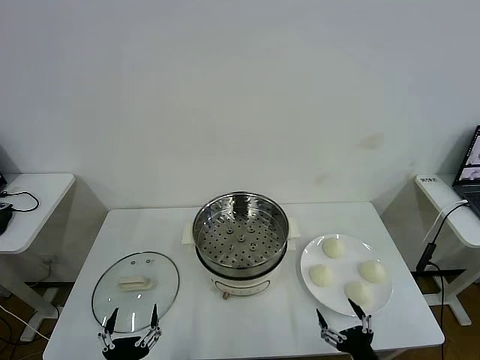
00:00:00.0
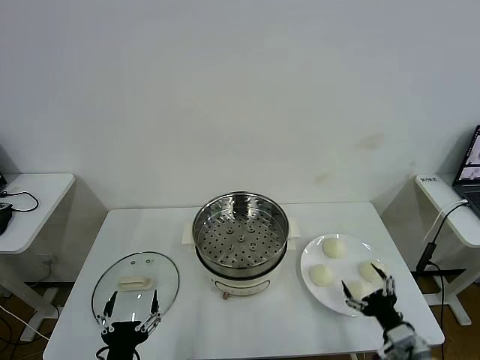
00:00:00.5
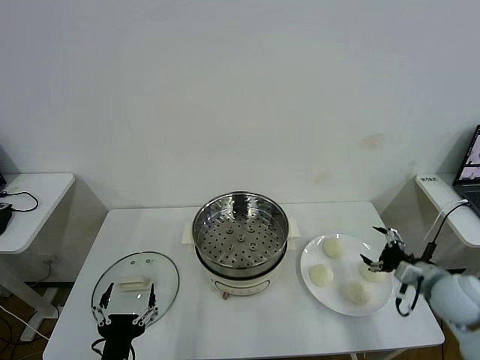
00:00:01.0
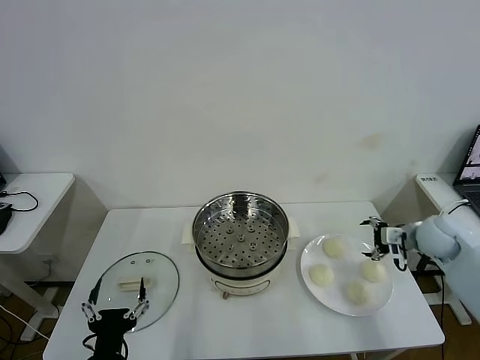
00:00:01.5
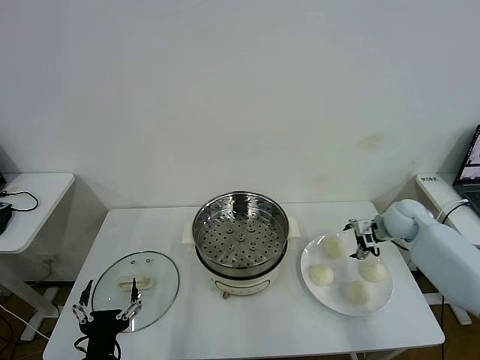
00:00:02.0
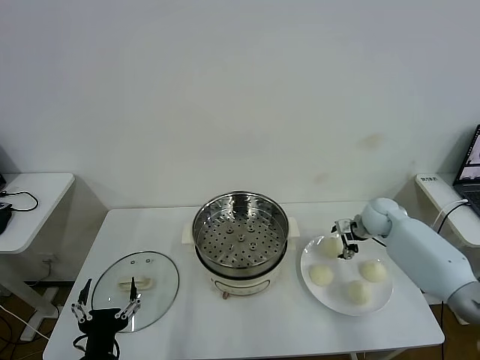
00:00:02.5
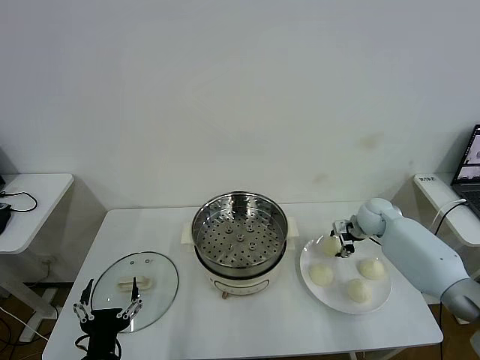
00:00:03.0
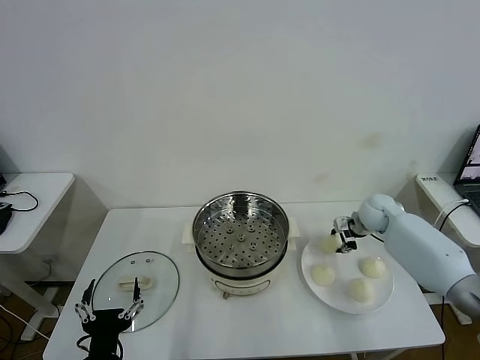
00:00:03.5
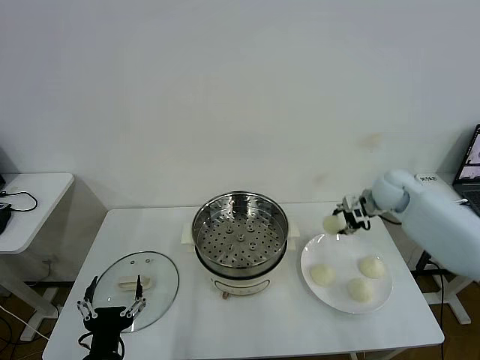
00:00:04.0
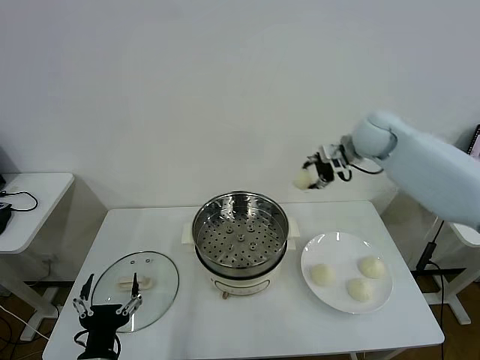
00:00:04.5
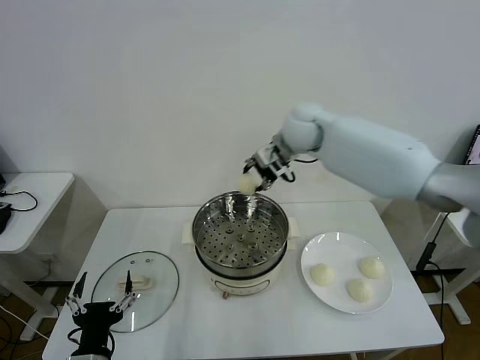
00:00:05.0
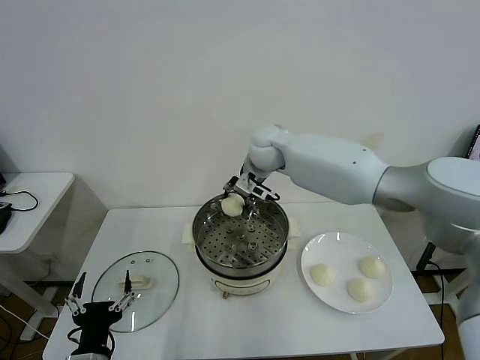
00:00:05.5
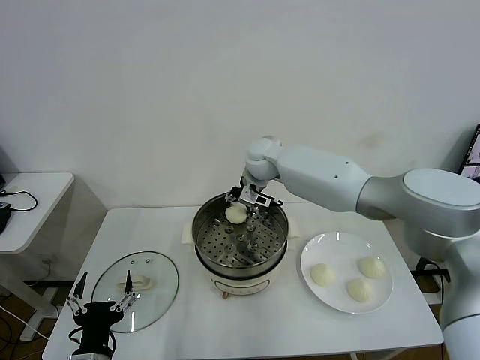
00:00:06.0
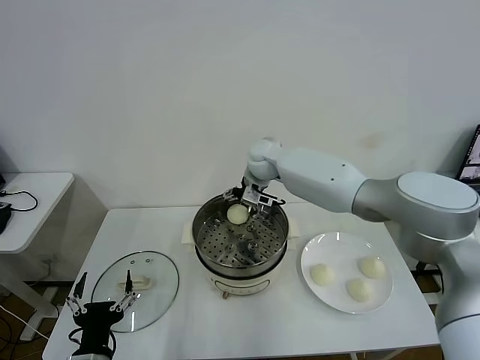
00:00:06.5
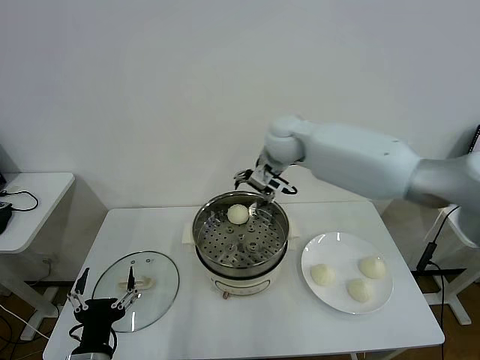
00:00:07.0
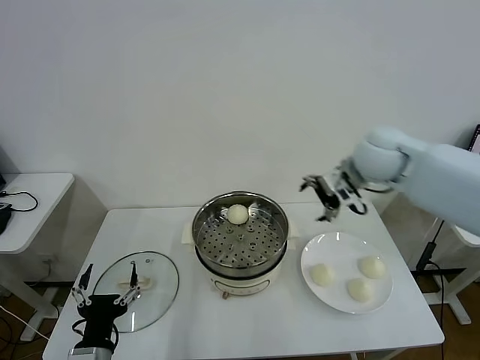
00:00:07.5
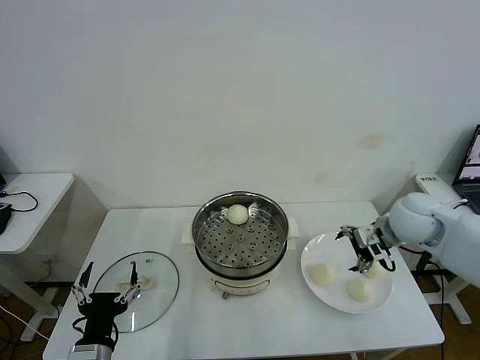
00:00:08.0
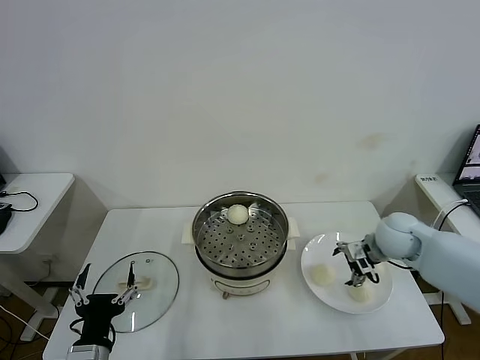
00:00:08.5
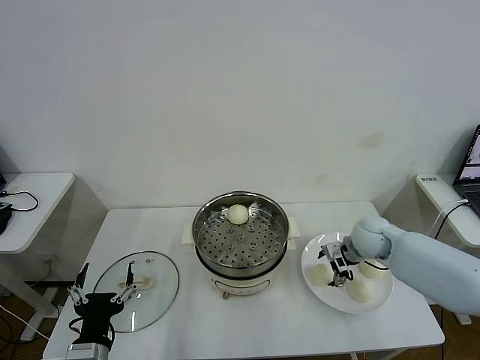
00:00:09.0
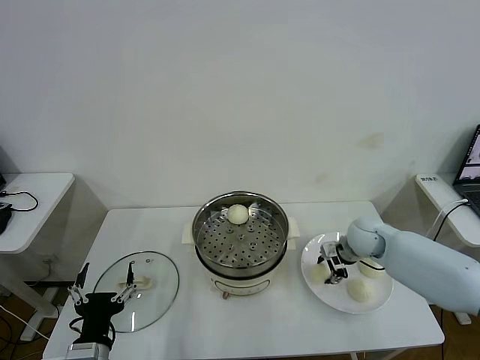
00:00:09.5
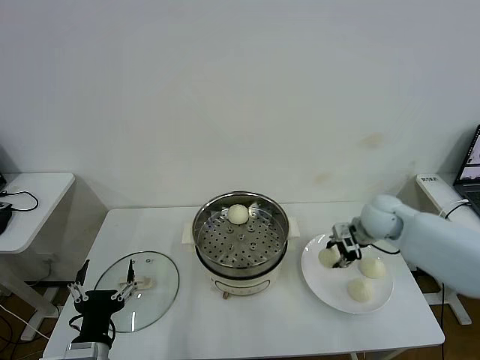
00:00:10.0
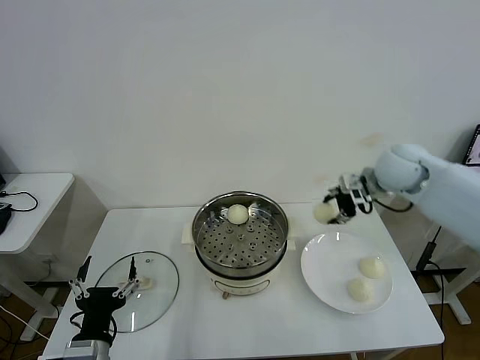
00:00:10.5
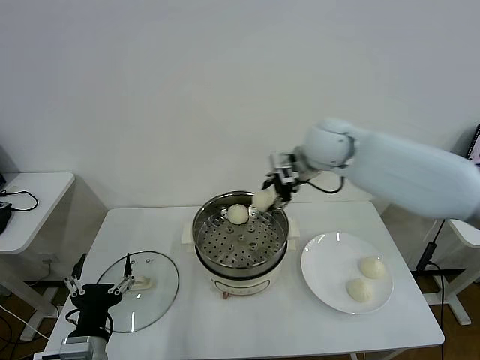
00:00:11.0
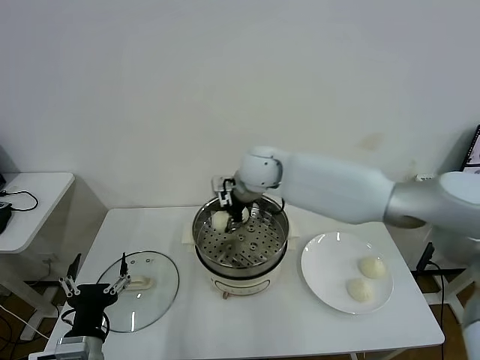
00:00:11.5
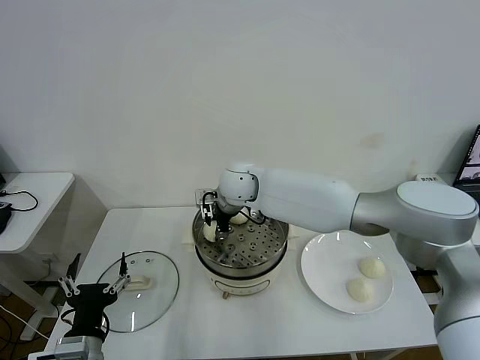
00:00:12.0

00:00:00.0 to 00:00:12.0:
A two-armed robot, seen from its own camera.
Task of the whole recording: take steamed baozi put them in steamer then cover it.
Step, 00:00:00.0 to 00:00:03.0: Grasp the baozi in the plate with right gripper.
Step, 00:00:03.5 to 00:00:06.0: Place the baozi on the steamer with right gripper.
Step, 00:00:07.0 to 00:00:09.5: Grasp the baozi in the plate with right gripper.
00:00:02.0 to 00:00:04.0: The right gripper travels upward by about 10 cm, and closes up.
00:00:04.0 to 00:00:06.0: The right gripper moves to the left, about 30 cm.
00:00:06.0 to 00:00:08.0: The right gripper goes some 35 cm to the right and backward, and opens up.
00:00:08.0 to 00:00:10.0: The right gripper moves forward, approximately 5 cm, and closes.
00:00:10.0 to 00:00:12.0: The right gripper heads to the left, covering roughly 35 cm.

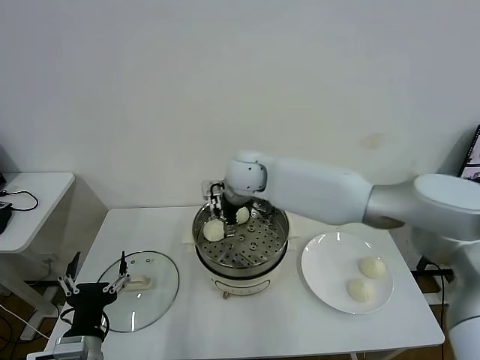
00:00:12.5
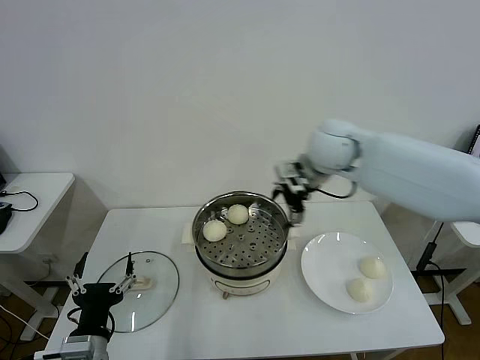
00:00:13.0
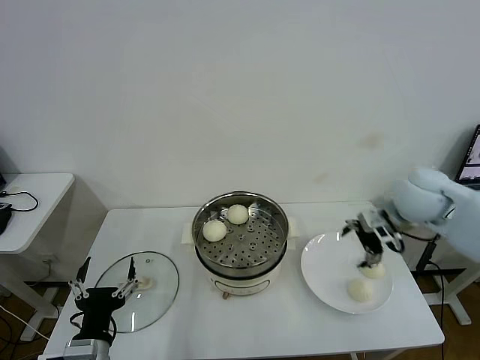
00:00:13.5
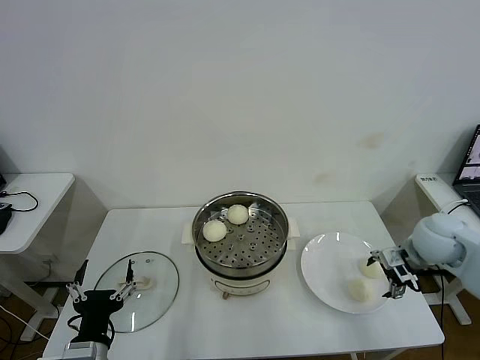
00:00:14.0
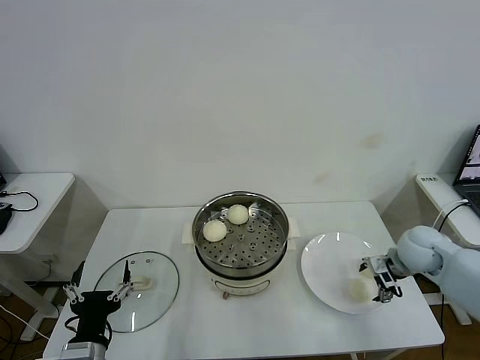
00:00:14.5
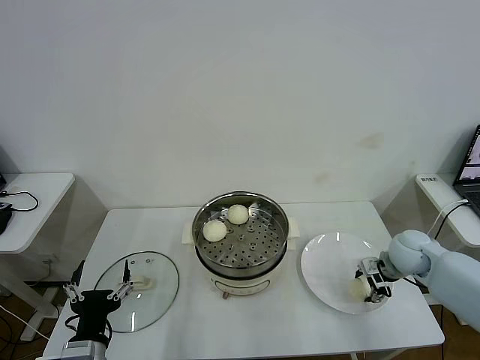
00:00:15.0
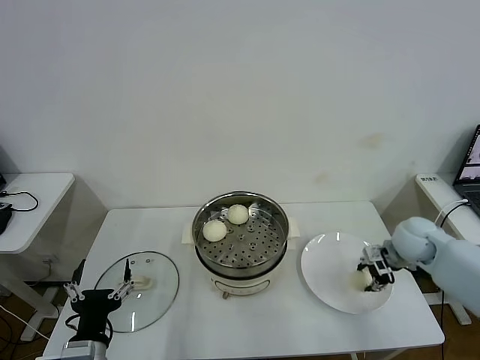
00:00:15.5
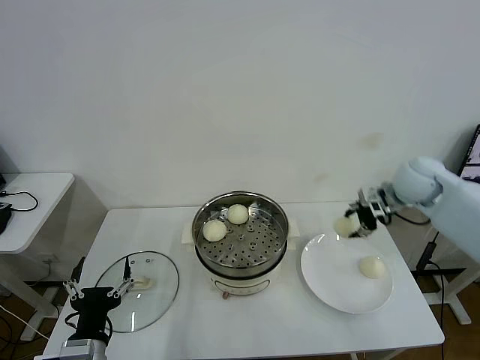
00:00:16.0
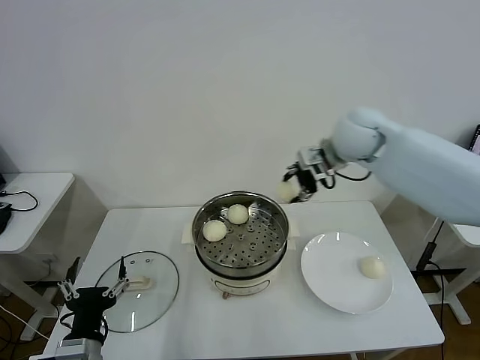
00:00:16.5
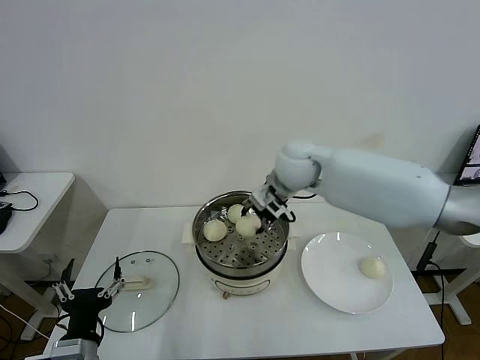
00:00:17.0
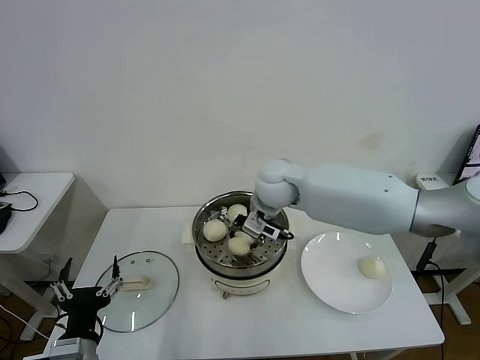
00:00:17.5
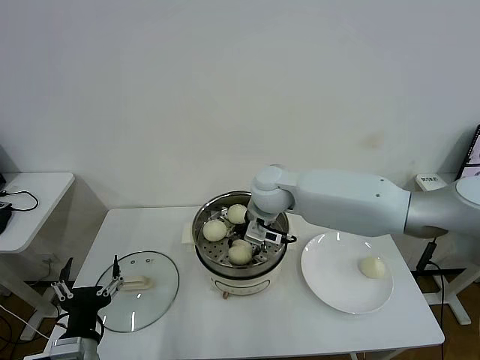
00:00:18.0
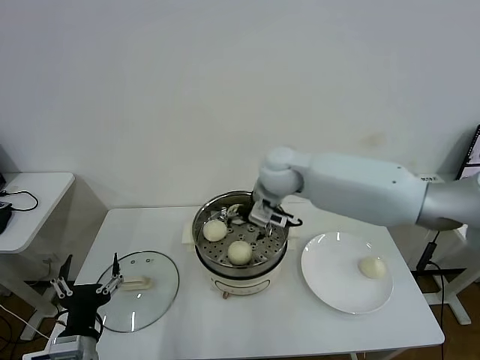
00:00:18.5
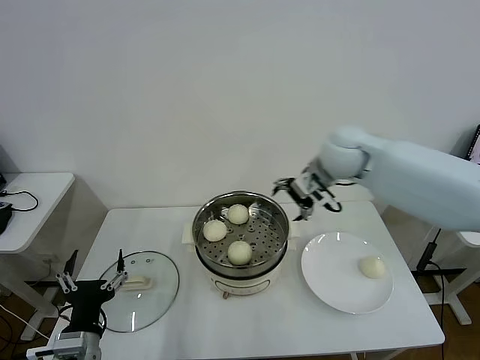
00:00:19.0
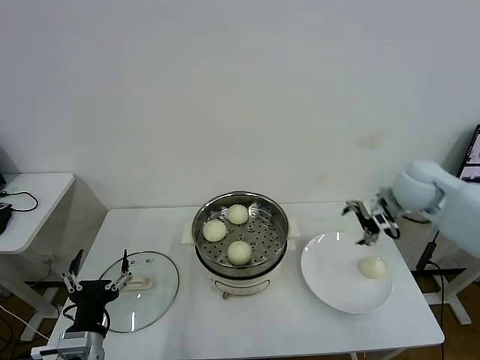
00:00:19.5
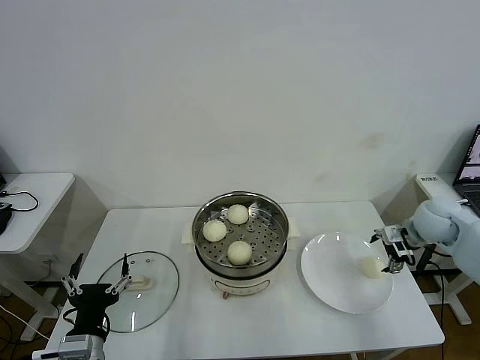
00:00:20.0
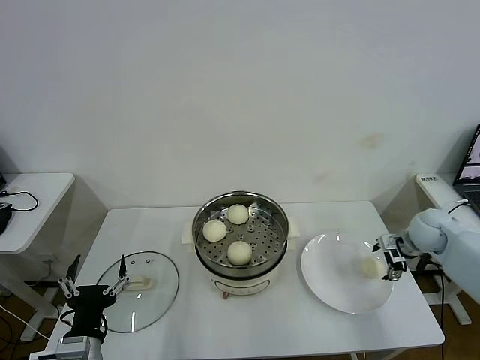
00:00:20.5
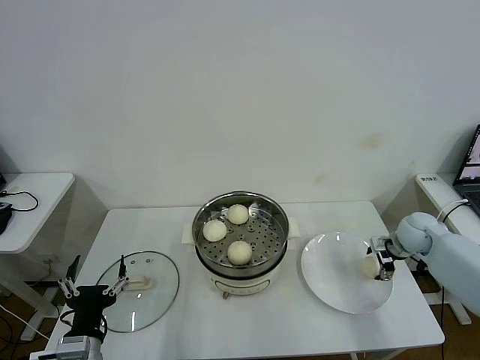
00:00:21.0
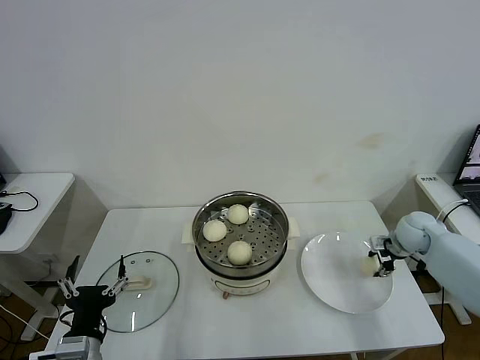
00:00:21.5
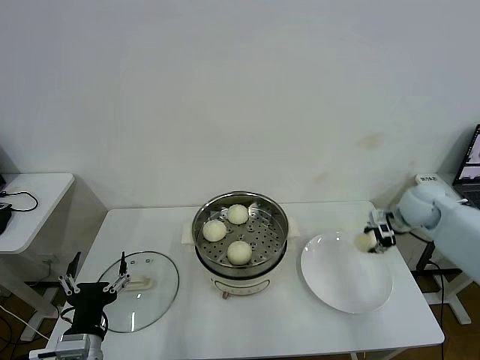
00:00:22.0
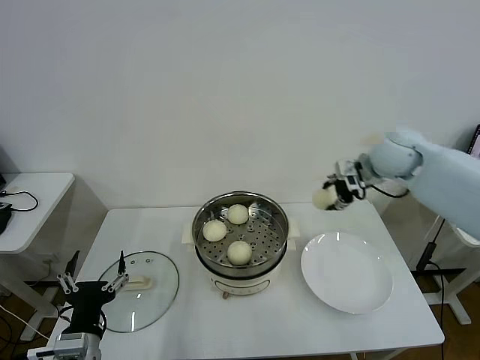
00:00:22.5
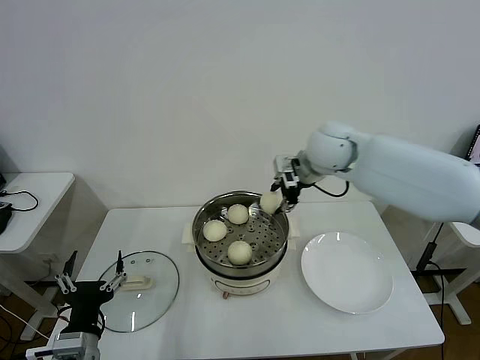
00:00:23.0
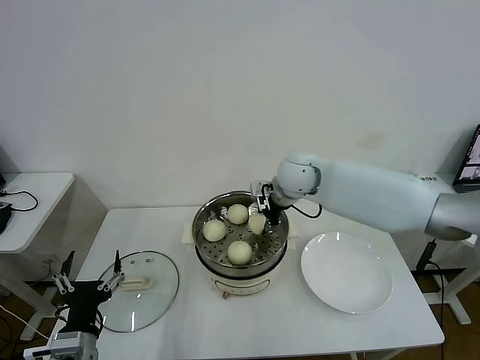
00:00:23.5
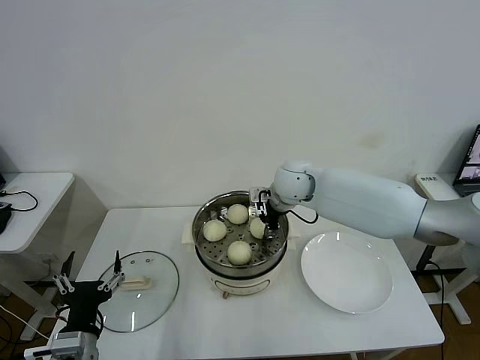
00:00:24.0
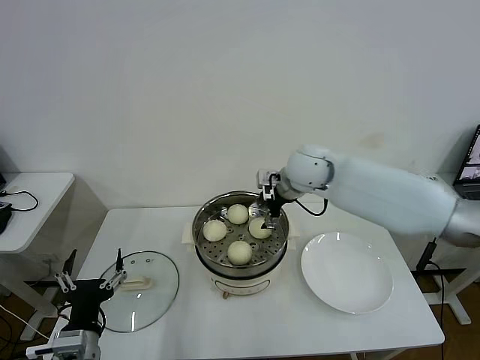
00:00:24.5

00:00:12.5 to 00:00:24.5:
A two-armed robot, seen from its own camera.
Task of the whole recording: take steamed baozi put them in steamer then cover it.
Step, 00:00:12.5 to 00:00:15.0: Grasp the baozi in the plate with right gripper.
Step, 00:00:15.5 to 00:00:18.0: Place the baozi on the steamer with right gripper.
Step, 00:00:18.5 to 00:00:21.0: Grasp the baozi in the plate with right gripper.
Step, 00:00:21.5 to 00:00:24.0: Place the baozi on the steamer with right gripper.
00:00:12.5 to 00:00:14.5: The right gripper moves to the right, approximately 40 cm.
00:00:14.5 to 00:00:16.5: The right gripper goes about 30 cm upward, to the left and forward, and closes.
00:00:16.5 to 00:00:18.5: The right gripper heads to the left and downward, covering approximately 15 cm, and opens its fingers.
00:00:18.5 to 00:00:20.5: The right gripper moves to the right, some 35 cm.
00:00:20.5 to 00:00:22.5: The right gripper shifts approximately 25 cm upward and to the left, and closes up.
00:00:22.5 to 00:00:24.5: The right gripper goes some 15 cm to the left, and opens.

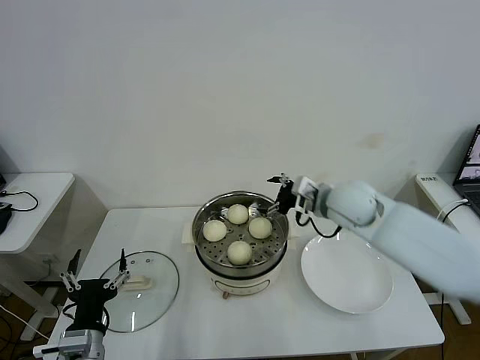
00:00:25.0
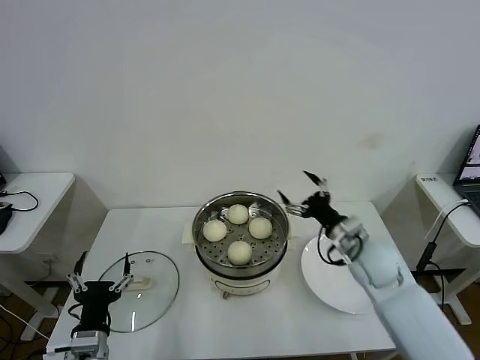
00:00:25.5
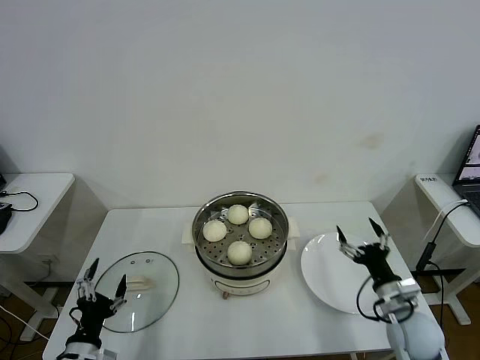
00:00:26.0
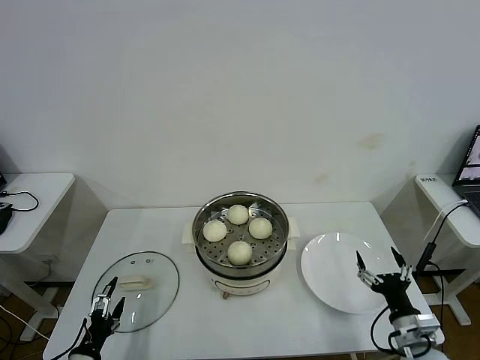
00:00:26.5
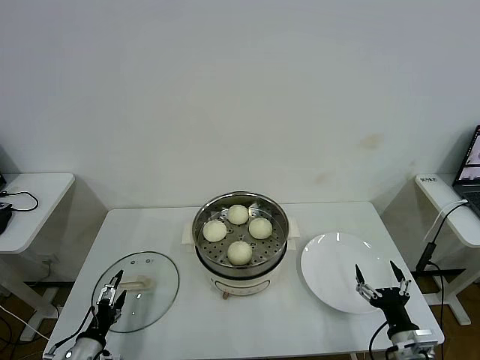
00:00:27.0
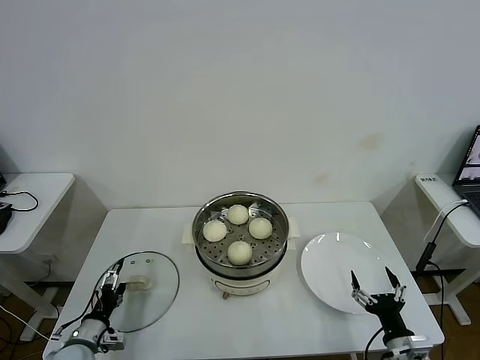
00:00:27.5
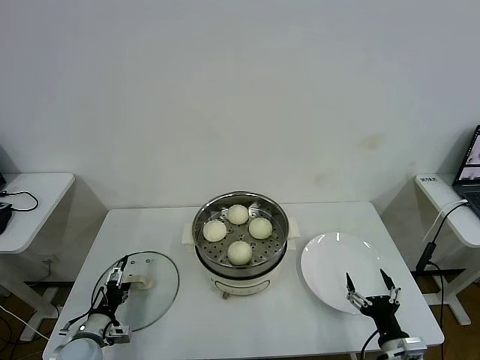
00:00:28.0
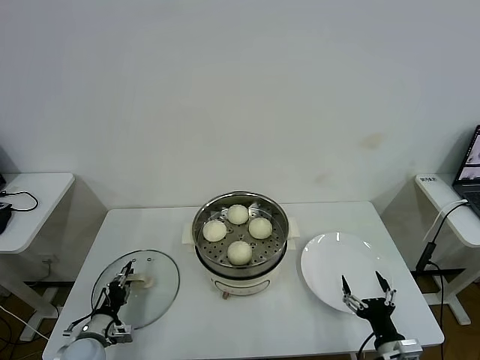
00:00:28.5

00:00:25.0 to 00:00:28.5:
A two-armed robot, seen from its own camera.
Task of the whole recording: take steamed baozi put them in steamer then cover it.
00:00:25.0 to 00:00:27.0: The right gripper travels backward, downward and to the right by approximately 40 cm. Meanwhile the left gripper travels downward and to the left by some 15 cm.
00:00:27.0 to 00:00:28.5: The left gripper shifts some 5 cm forward, and closes.
